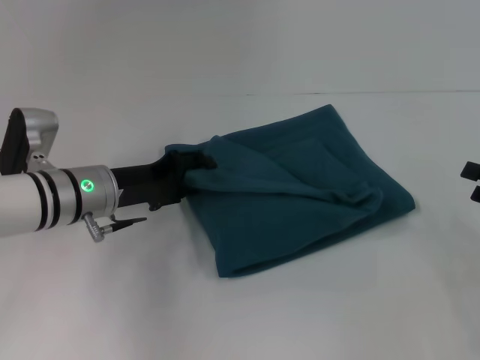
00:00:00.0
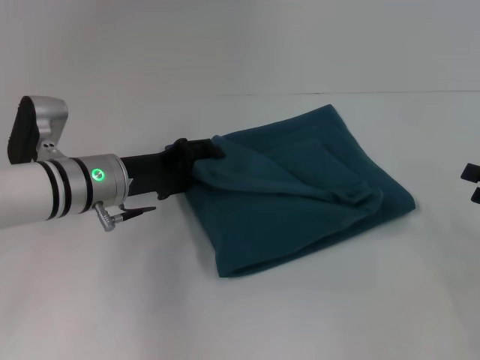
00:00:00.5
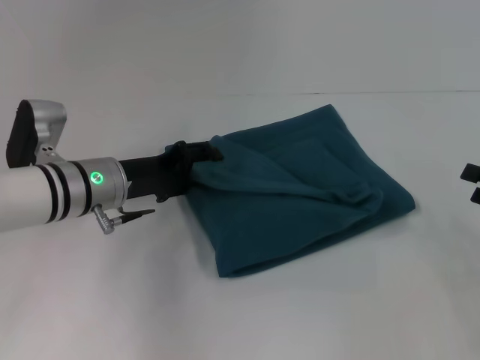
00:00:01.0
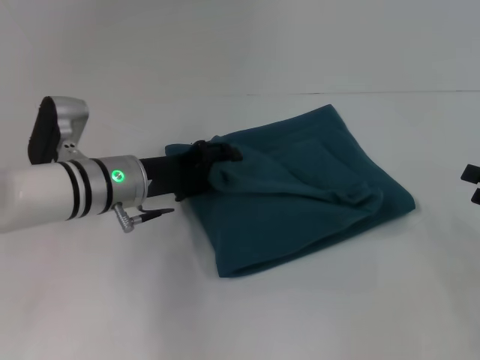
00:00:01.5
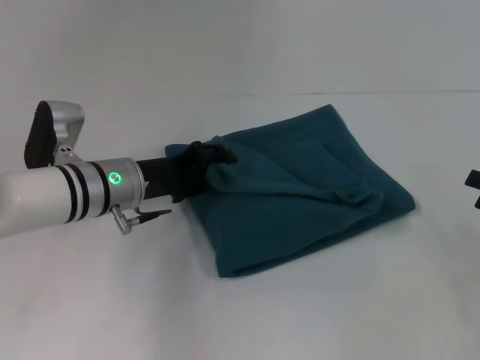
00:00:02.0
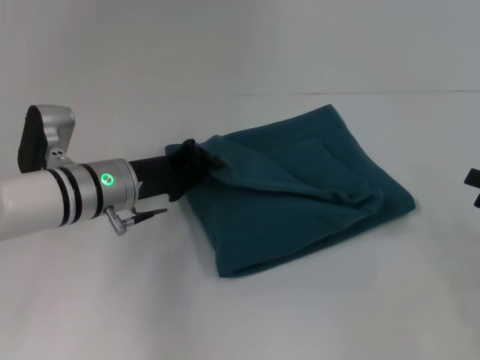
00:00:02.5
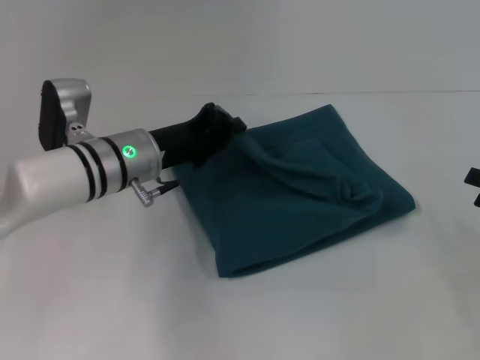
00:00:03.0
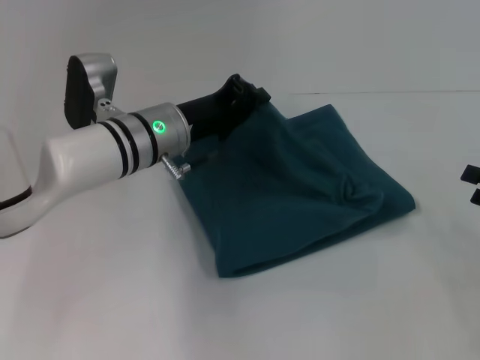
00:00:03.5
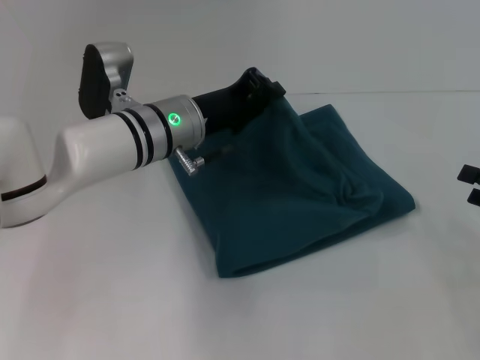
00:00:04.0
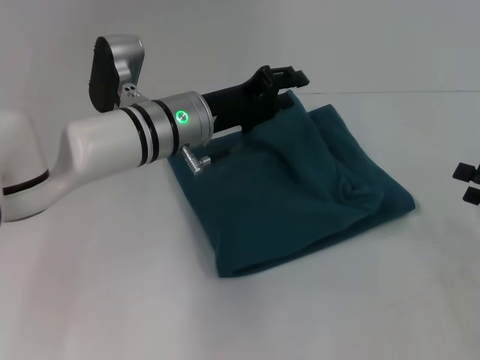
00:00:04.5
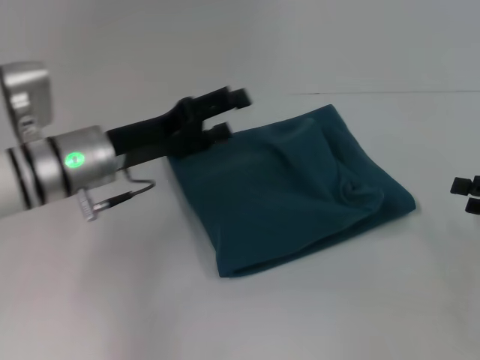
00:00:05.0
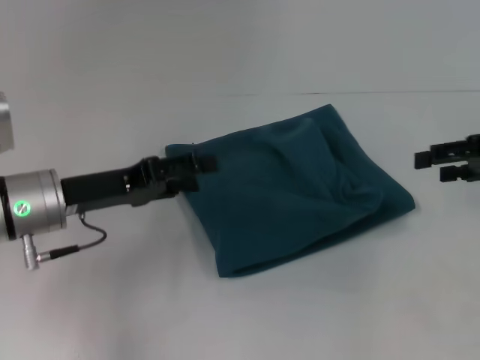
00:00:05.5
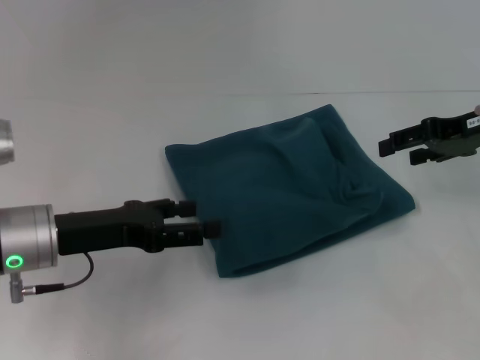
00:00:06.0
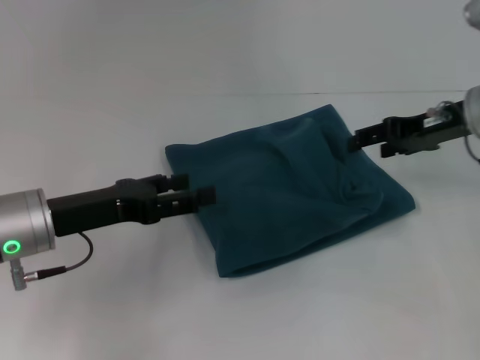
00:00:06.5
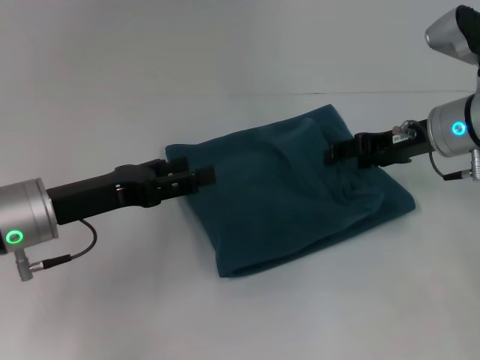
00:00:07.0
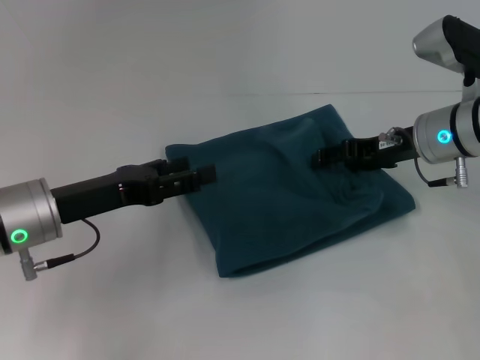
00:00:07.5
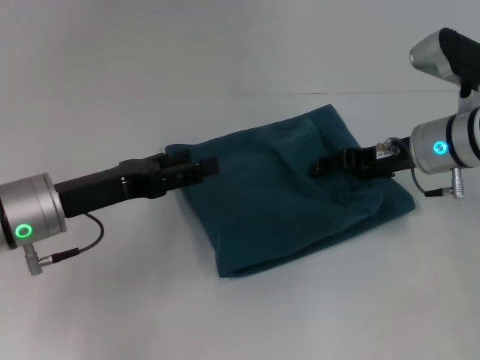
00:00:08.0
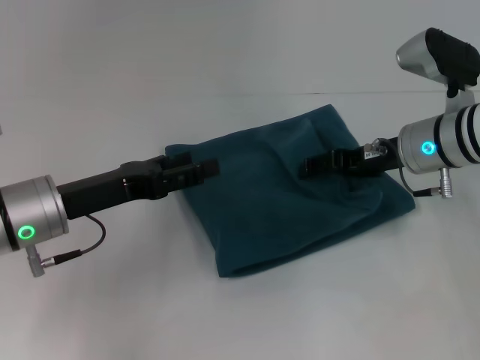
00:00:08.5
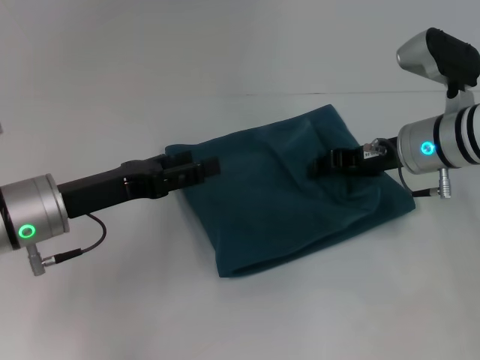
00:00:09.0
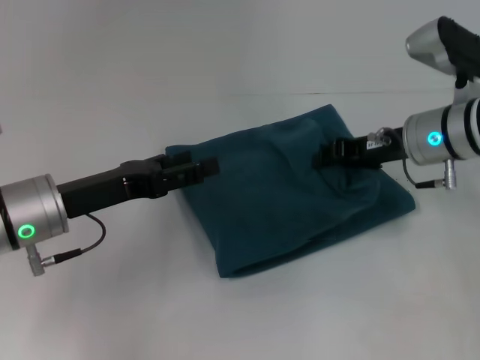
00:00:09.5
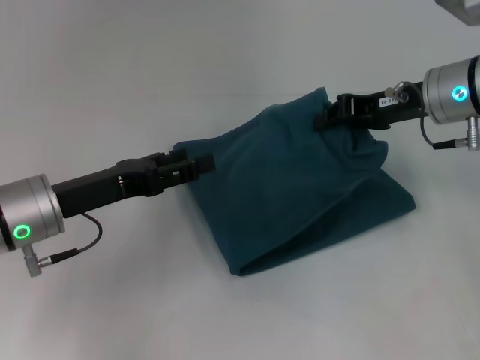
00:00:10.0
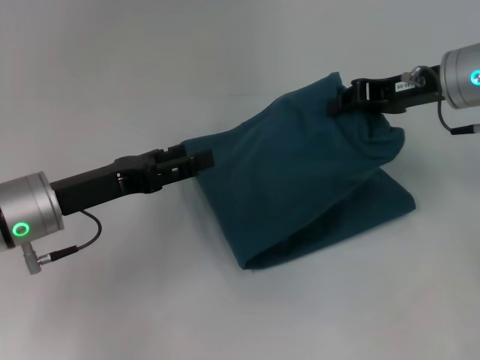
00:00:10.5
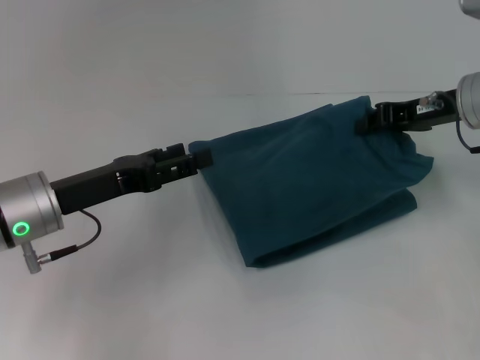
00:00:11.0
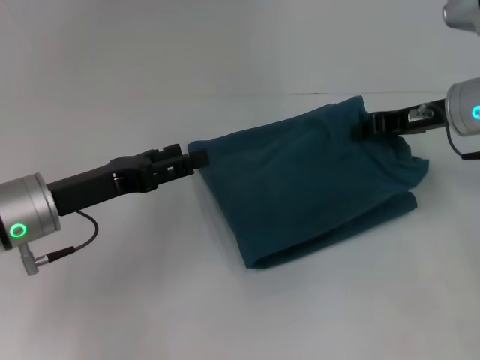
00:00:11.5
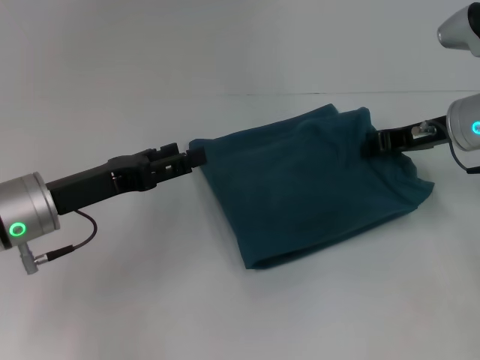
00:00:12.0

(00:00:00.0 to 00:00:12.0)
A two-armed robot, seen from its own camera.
Step, 00:00:00.0 - 00:00:04.5: Fold the clothes to the left.
00:00:00.0 - 00:00:02.0: The grippers make only small movements.
00:00:02.0 - 00:00:04.0: The left gripper goes some 5 cm to the right, and closes.
00:00:04.0 - 00:00:06.0: The right gripper shifts approximately 20 cm forward, upward and to the left, while the left gripper travels to the left and backward by about 15 cm, and opens.
00:00:06.0 - 00:00:08.0: The right gripper is displaced to the left and downward by approximately 10 cm.
00:00:08.0 - 00:00:10.0: The right gripper moves upward, roughly 5 cm, and closes up.
00:00:10.0 - 00:00:12.0: The grippers move only a little.

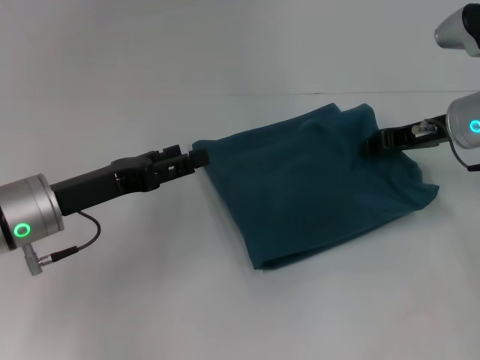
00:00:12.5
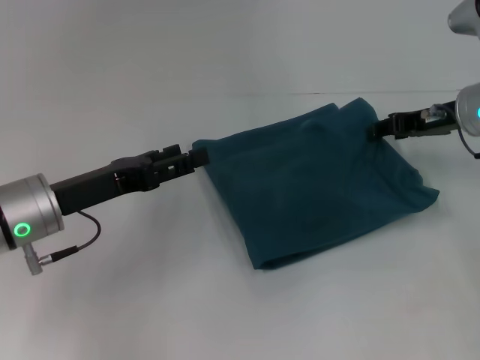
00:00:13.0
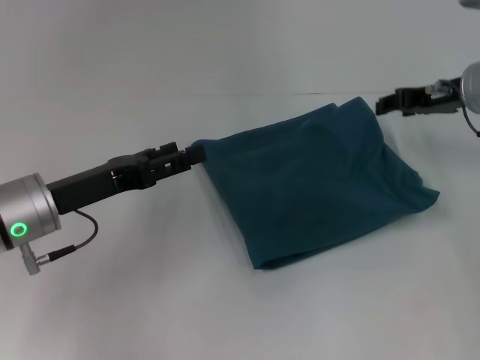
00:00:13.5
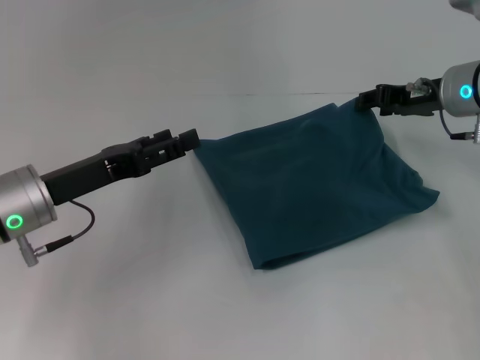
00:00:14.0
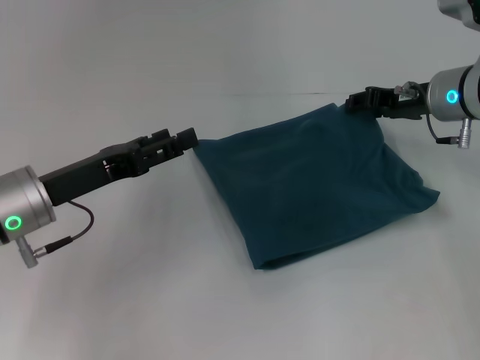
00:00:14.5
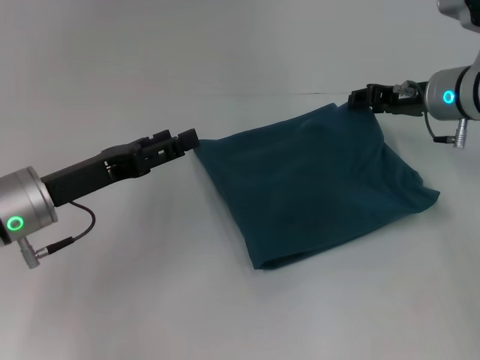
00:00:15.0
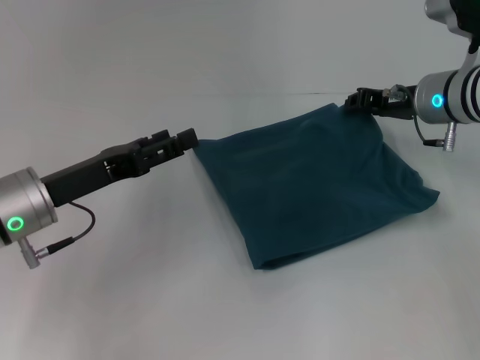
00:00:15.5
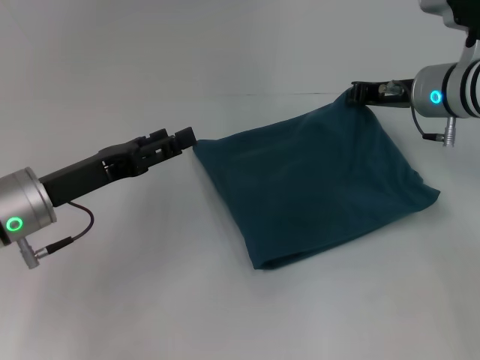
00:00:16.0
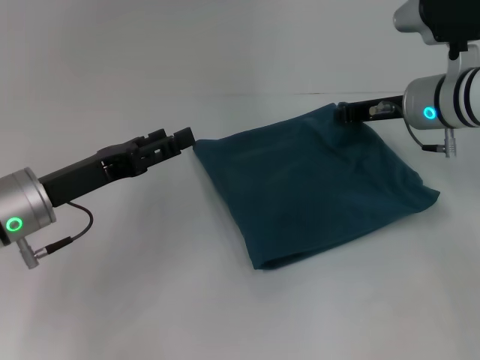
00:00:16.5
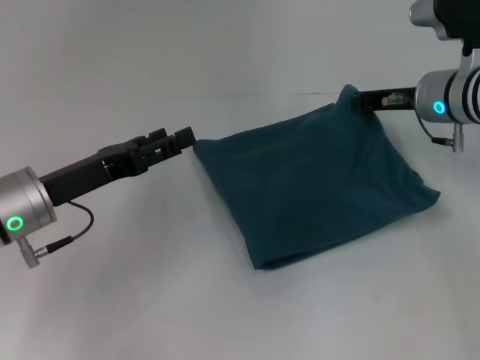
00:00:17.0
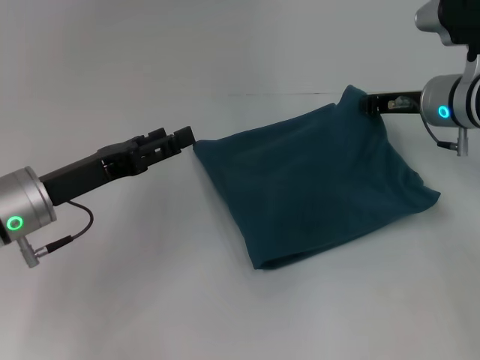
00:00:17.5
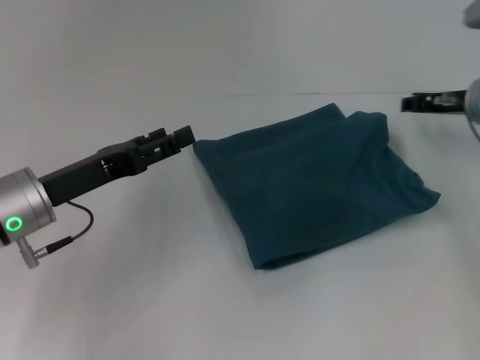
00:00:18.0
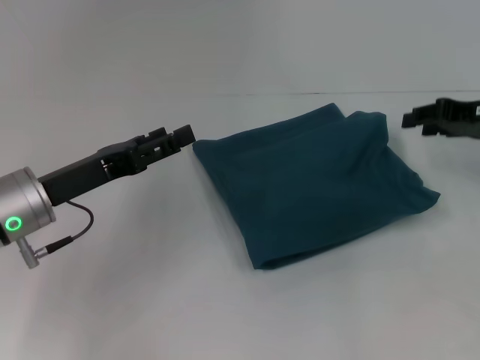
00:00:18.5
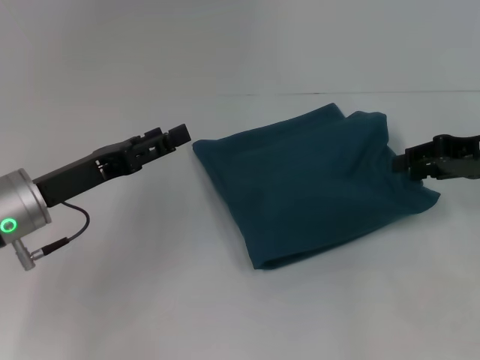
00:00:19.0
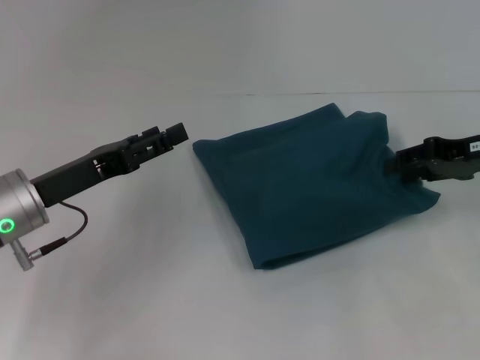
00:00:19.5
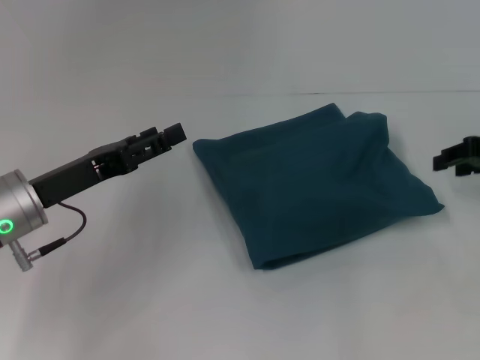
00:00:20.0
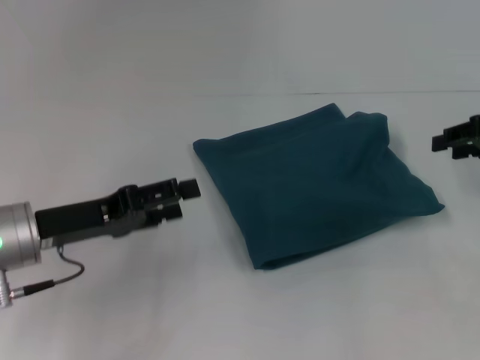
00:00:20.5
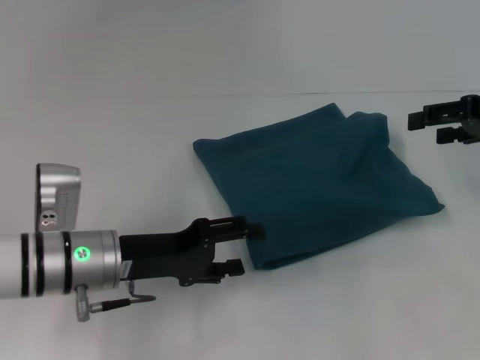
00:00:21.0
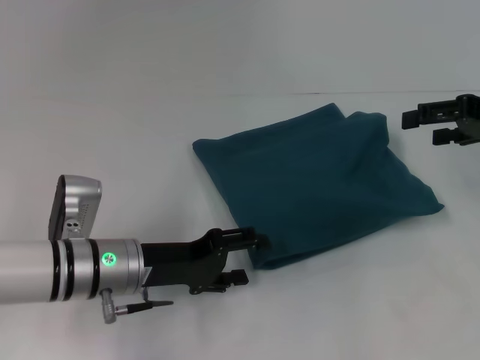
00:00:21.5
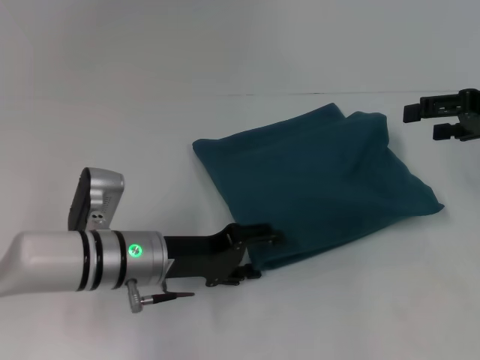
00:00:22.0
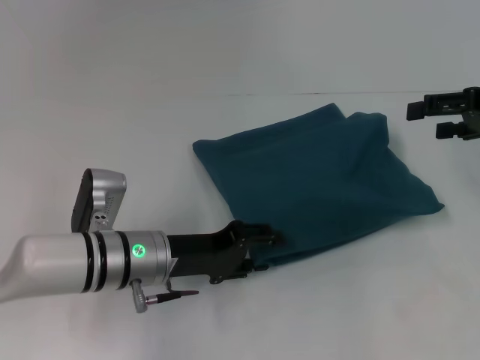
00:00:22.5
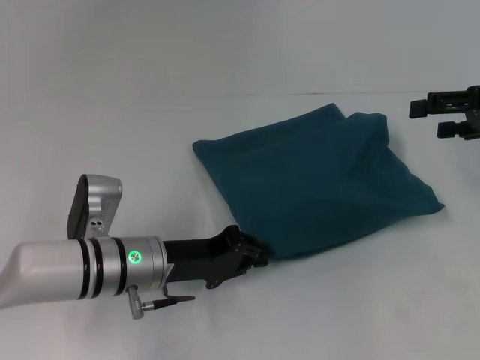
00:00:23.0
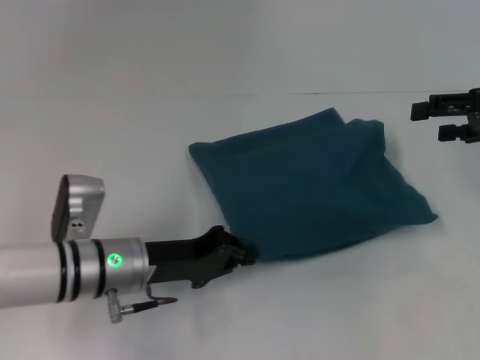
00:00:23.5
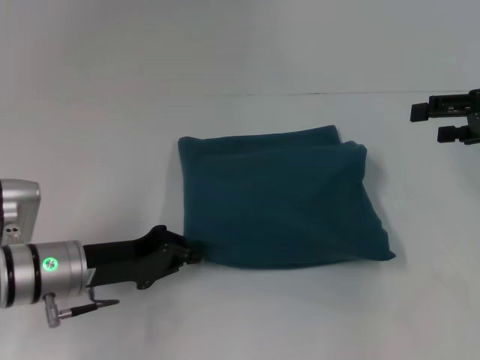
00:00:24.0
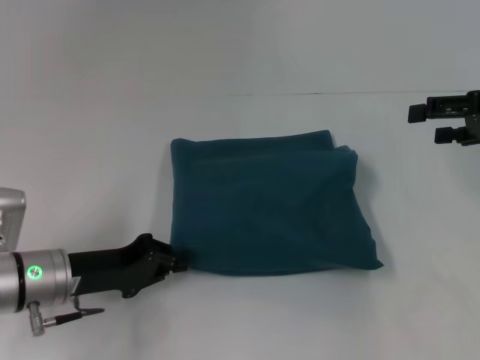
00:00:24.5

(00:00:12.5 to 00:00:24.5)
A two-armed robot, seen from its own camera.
00:00:12.5 - 00:00:14.5: The right gripper opens.
00:00:14.5 - 00:00:16.5: The right gripper closes.
00:00:16.5 - 00:00:18.5: The right gripper travels to the right by some 10 cm, and opens up.
00:00:20.5 - 00:00:22.5: The right gripper opens its fingers; the left gripper goes about 10 cm to the right and downward.
00:00:22.5 - 00:00:24.5: The left gripper is displaced to the left by about 10 cm, and closes.

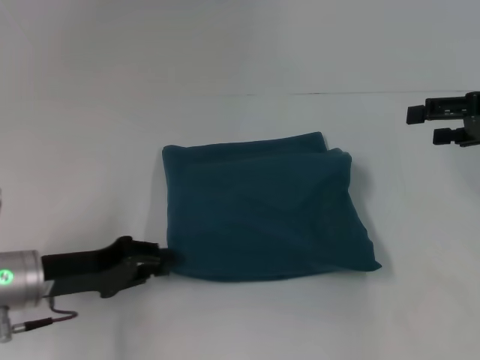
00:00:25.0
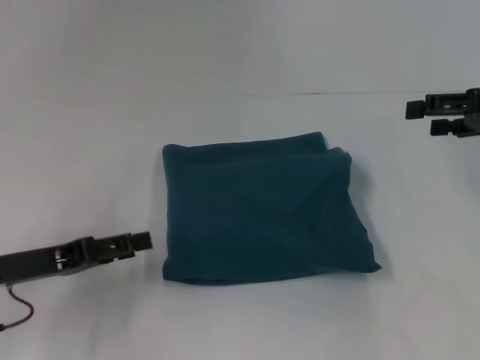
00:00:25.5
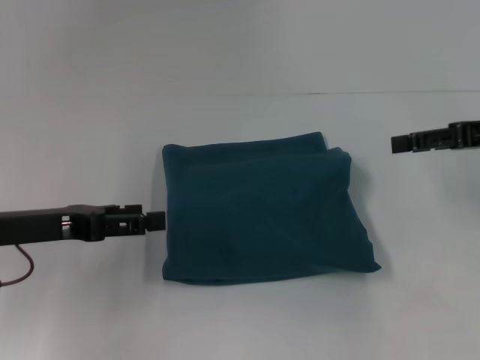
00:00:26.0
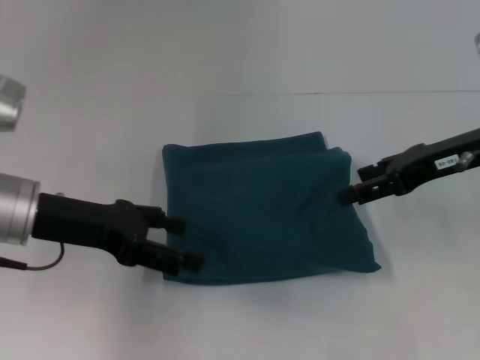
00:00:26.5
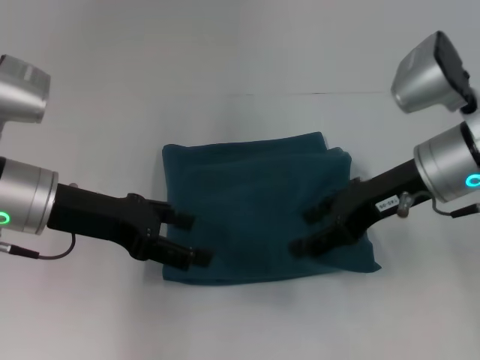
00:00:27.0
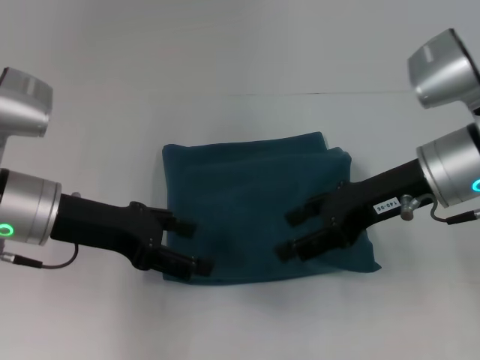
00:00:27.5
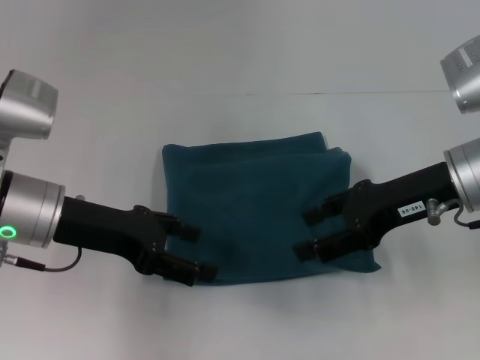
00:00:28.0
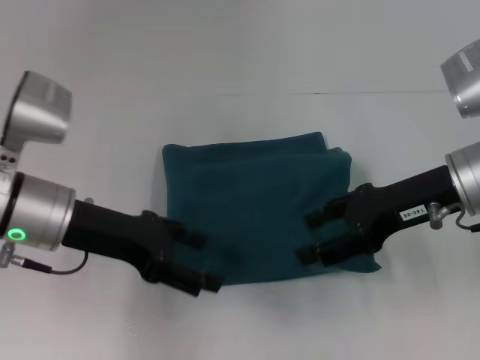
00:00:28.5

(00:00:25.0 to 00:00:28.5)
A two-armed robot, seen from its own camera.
00:00:25.0 - 00:00:27.0: The right gripper shifts approximately 15 cm to the left, while the left gripper travels upward by roughly 10 cm, and opens up.
00:00:27.0 - 00:00:28.5: The grippers make only small movements.
